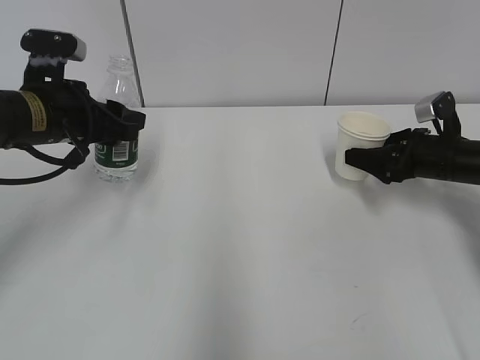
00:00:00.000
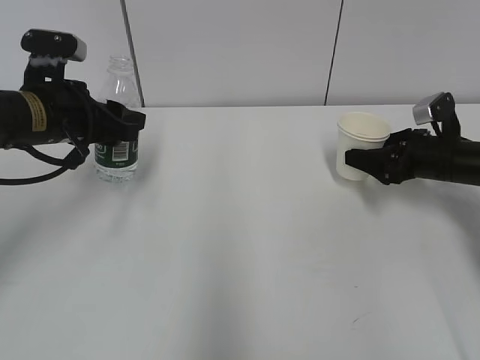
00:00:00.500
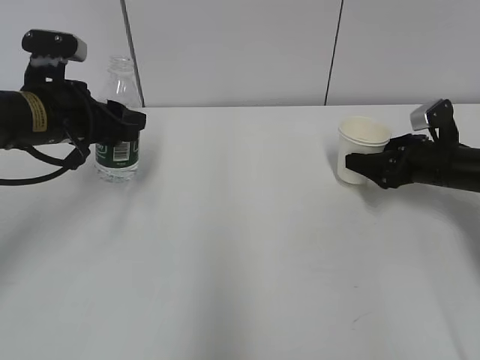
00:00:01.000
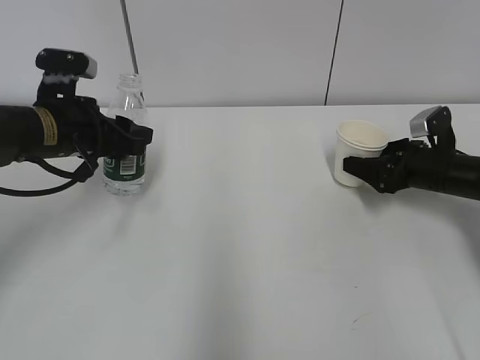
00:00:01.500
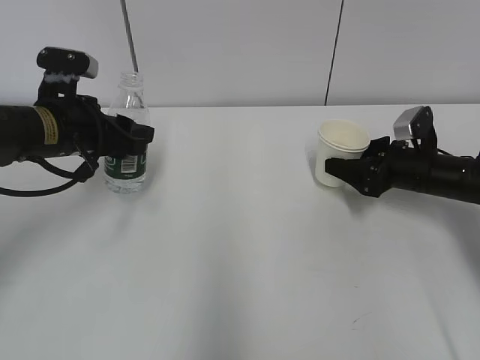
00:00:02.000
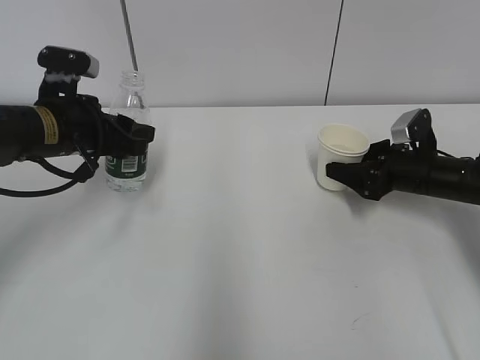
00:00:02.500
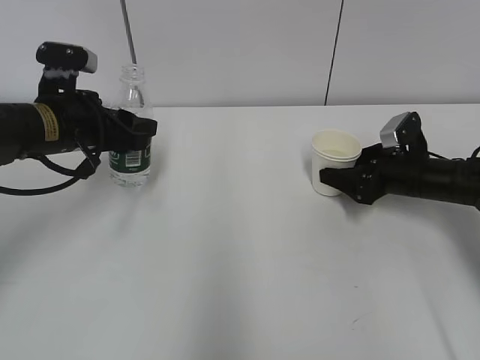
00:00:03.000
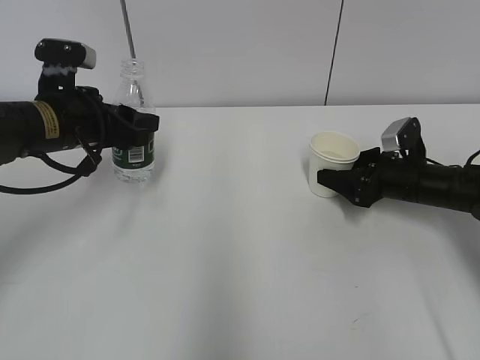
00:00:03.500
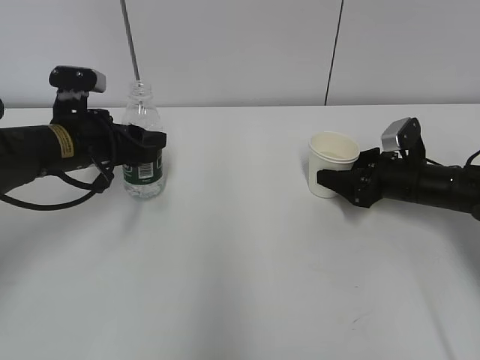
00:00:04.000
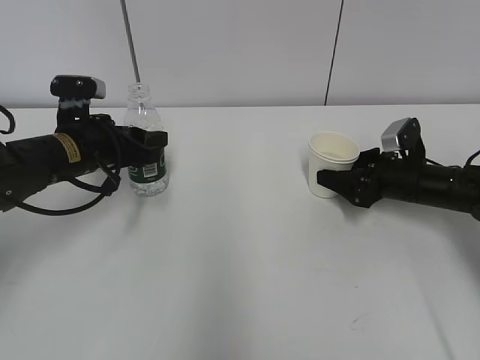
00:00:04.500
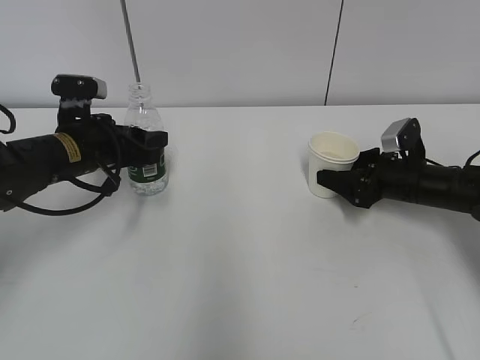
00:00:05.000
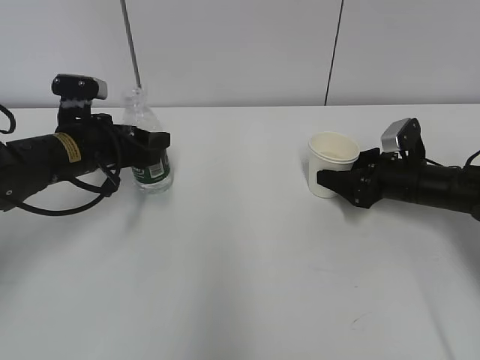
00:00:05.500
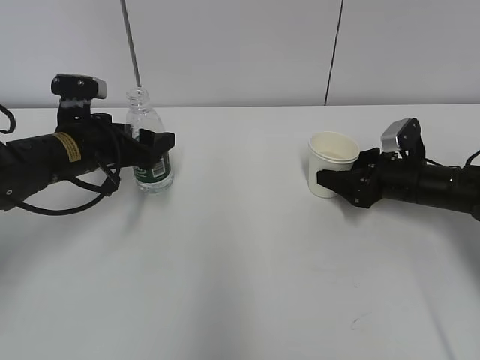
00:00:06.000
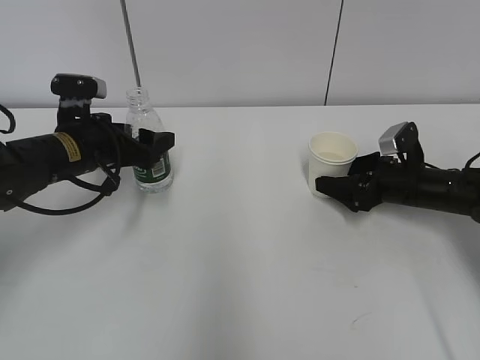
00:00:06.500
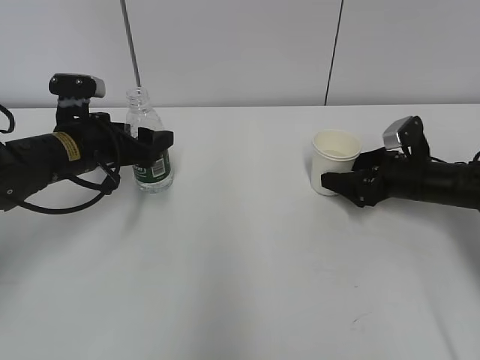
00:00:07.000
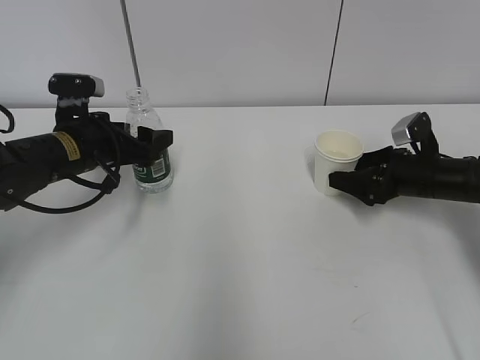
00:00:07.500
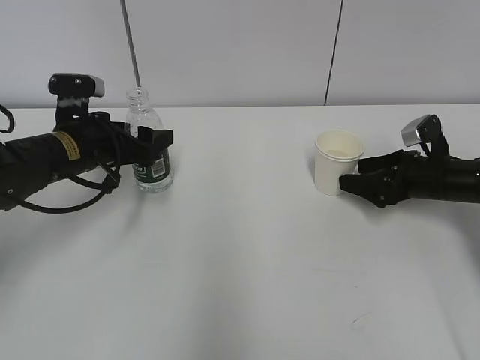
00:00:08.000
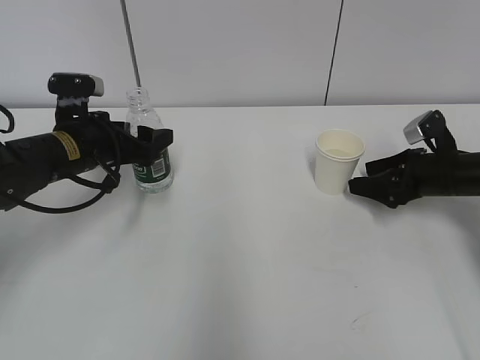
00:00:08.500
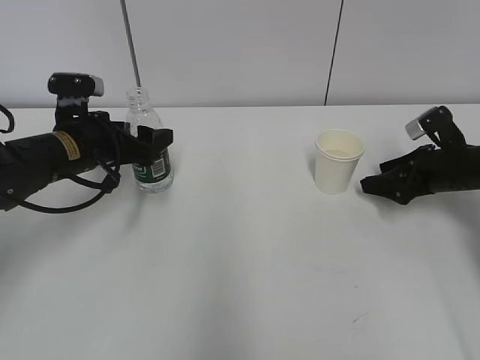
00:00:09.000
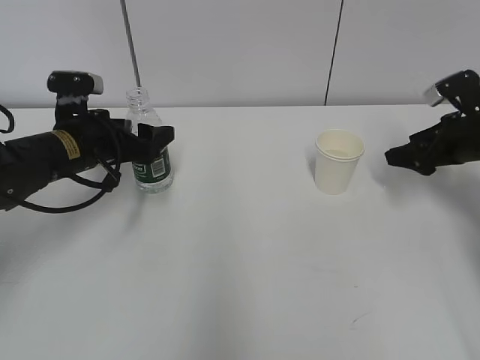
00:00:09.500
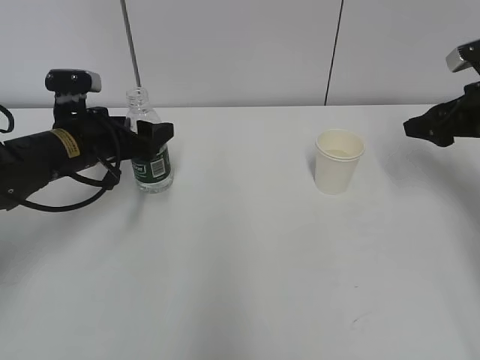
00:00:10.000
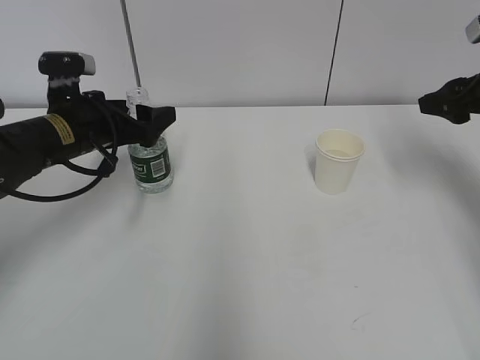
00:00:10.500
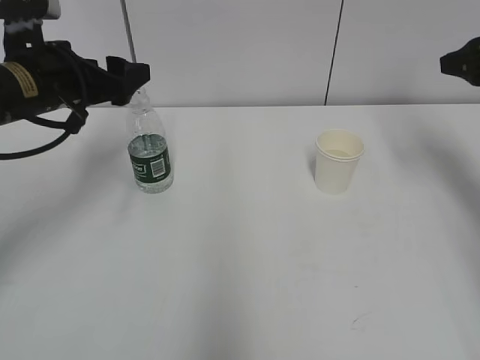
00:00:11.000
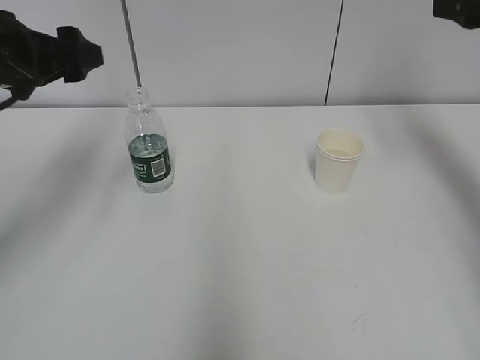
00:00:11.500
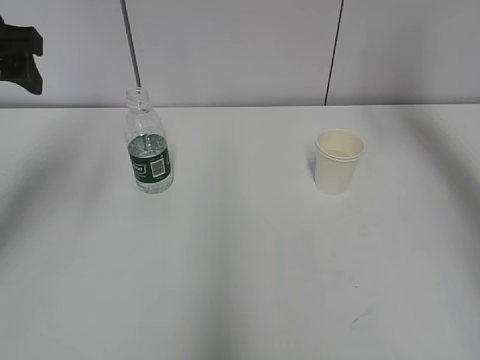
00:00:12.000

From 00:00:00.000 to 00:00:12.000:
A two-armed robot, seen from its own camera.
Step, from 00:00:00.000 to 00:00:01.500: Place the paper cup with the right hand.
From 00:00:00.000 to 00:00:04.000: There are only small adjustments of the grippers.
From 00:00:04.000 to 00:00:06.000: The left gripper opens up.
From 00:00:06.000 to 00:00:08.000: The right gripper opens.
From 00:00:08.000 to 00:00:10.000: The right gripper goes roughly 10 cm upward, and closes its fingers.
From 00:00:10.000 to 00:00:12.000: Both grippers move upward, some 20 cm.

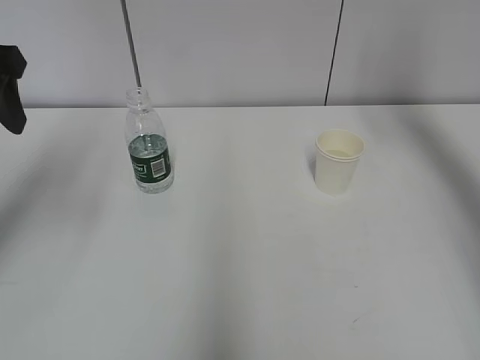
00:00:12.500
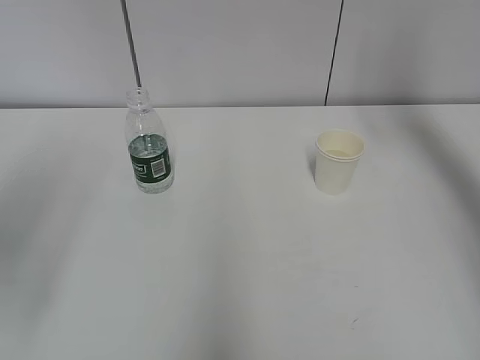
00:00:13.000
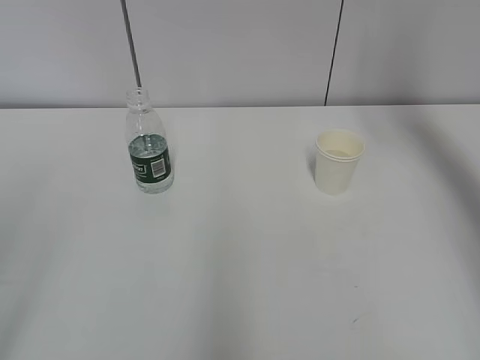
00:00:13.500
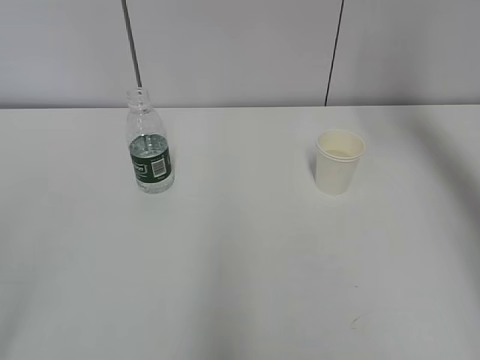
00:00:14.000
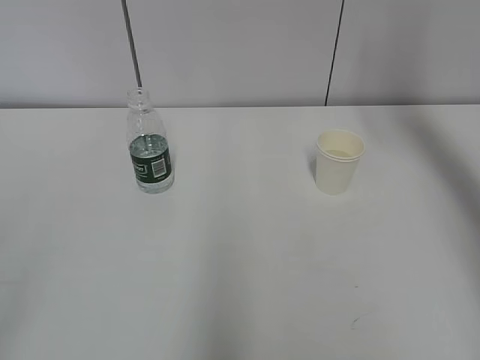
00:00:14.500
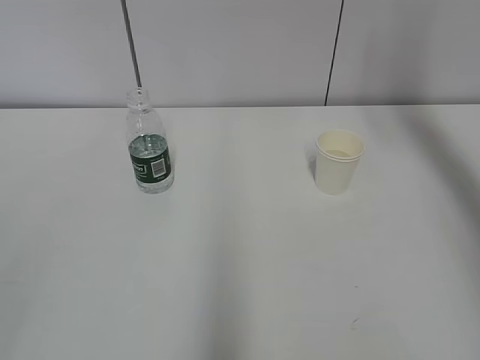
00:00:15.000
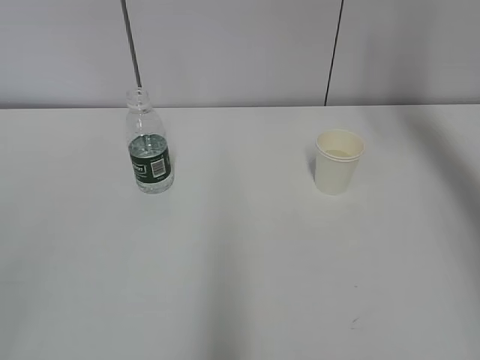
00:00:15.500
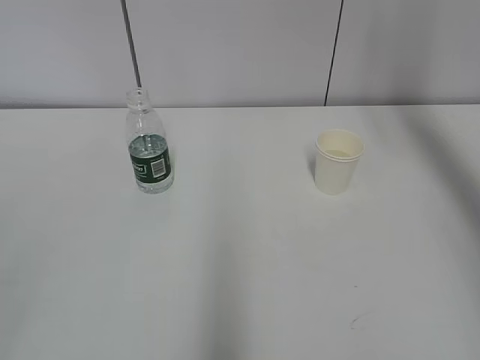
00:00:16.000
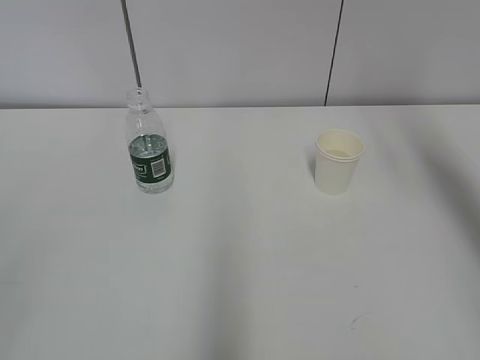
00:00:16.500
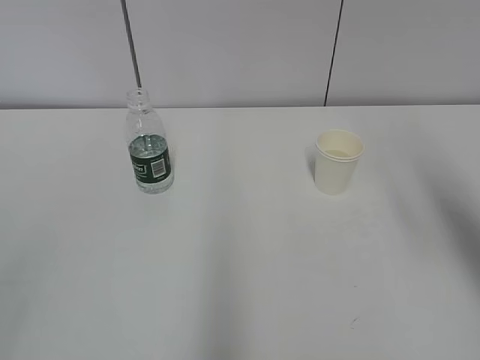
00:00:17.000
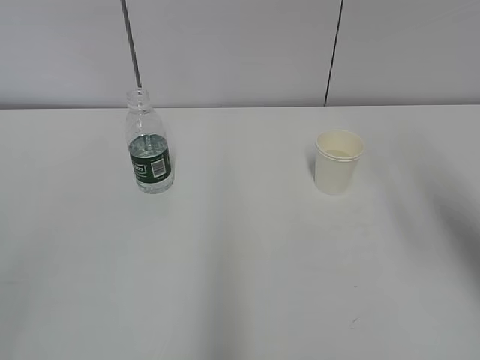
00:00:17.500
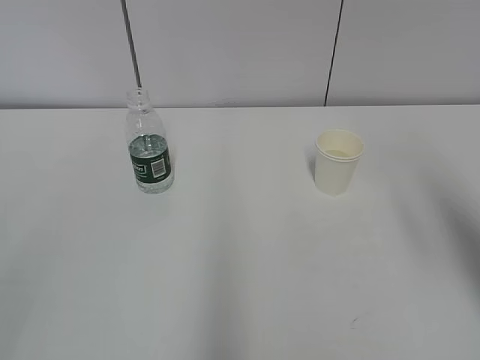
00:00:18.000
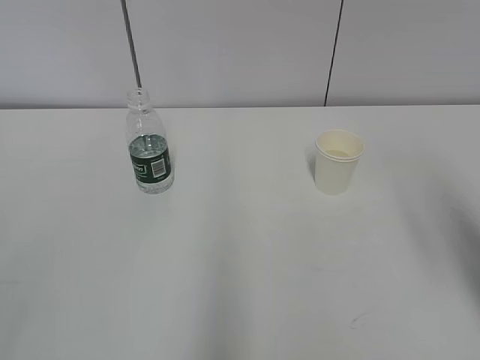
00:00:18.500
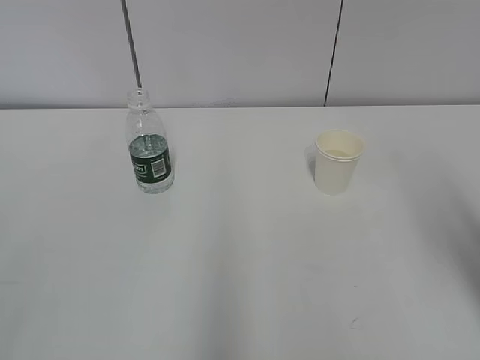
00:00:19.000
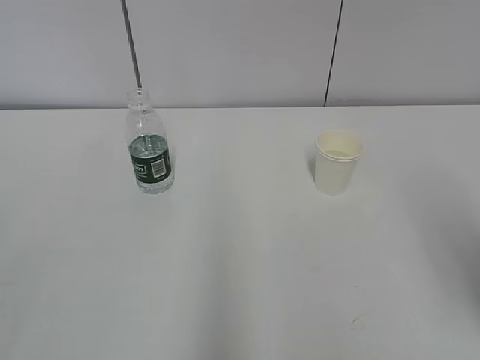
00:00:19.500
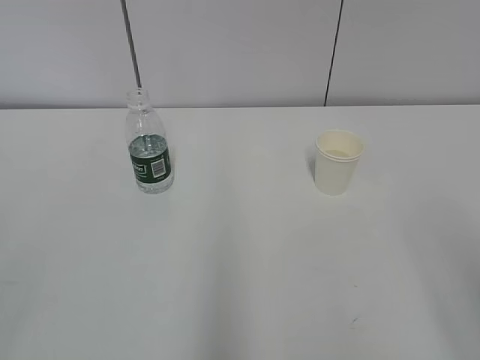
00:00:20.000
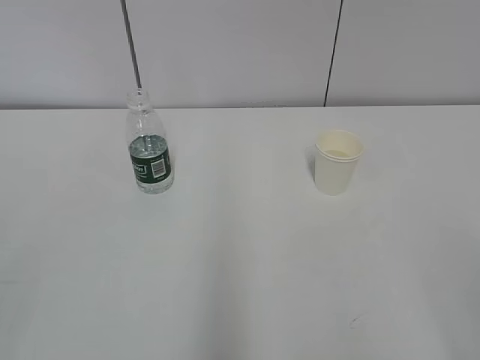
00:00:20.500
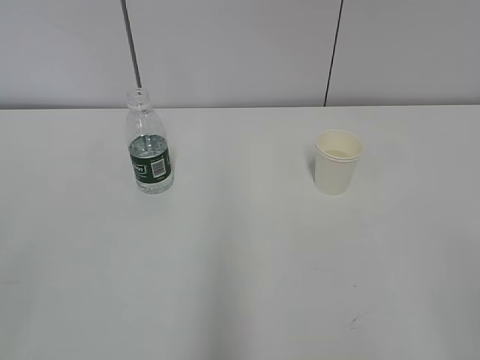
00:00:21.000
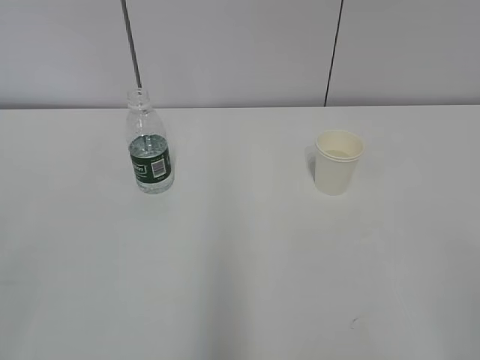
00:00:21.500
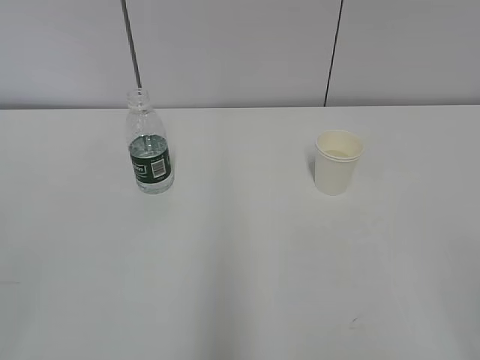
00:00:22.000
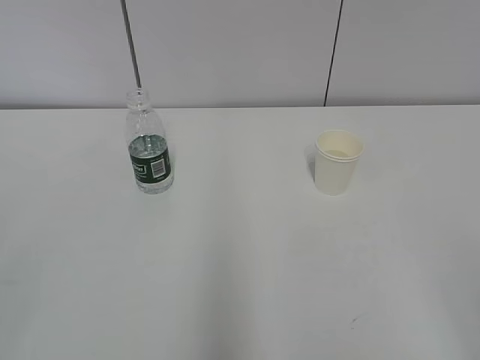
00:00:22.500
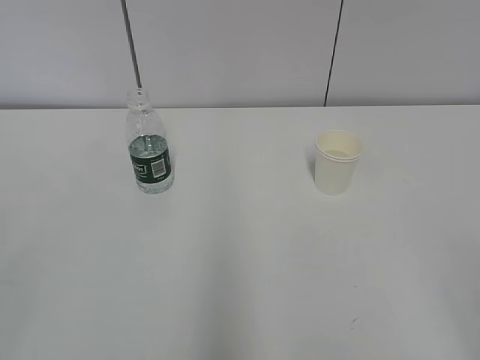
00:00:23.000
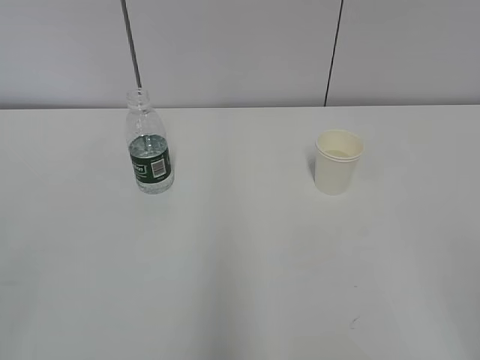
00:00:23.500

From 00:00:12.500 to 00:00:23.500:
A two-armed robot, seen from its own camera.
From 00:00:12.500 to 00:00:14.500: The left gripper goes approximately 30 cm backward.
From 00:00:16.000 to 00:00:18.000: The right gripper moves backward, some 20 cm.
From 00:00:18.000 to 00:00:20.000: The right gripper goes about 10 cm backward and downward.
